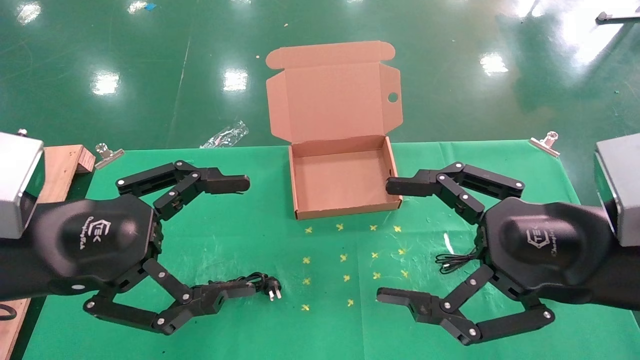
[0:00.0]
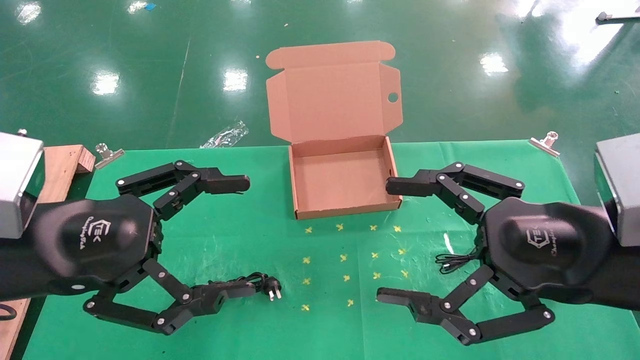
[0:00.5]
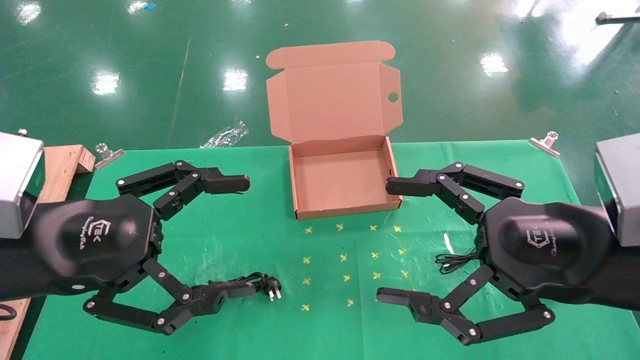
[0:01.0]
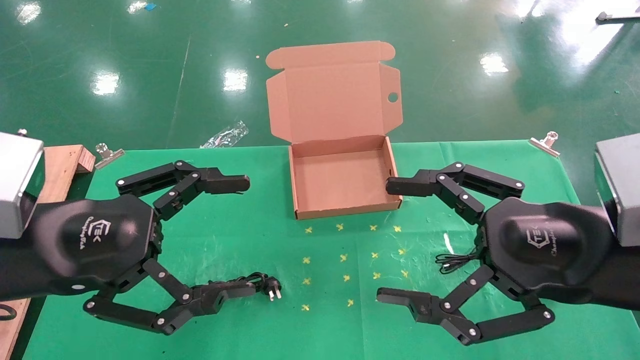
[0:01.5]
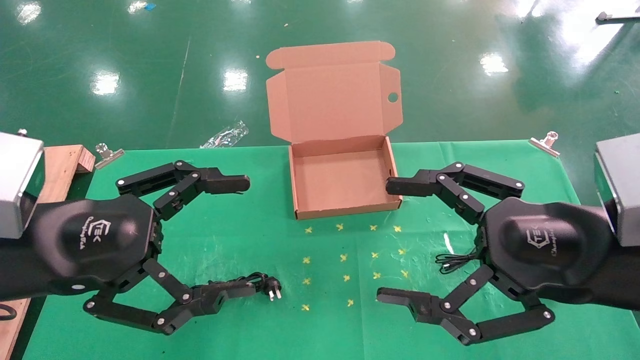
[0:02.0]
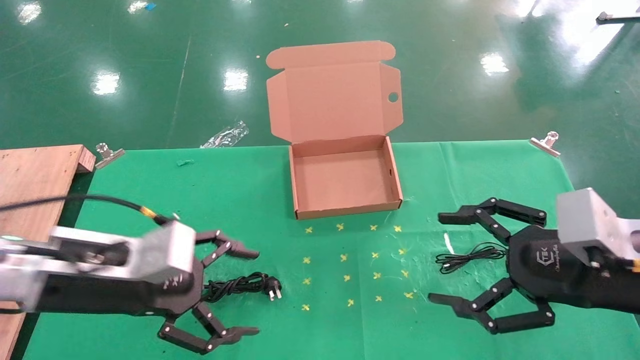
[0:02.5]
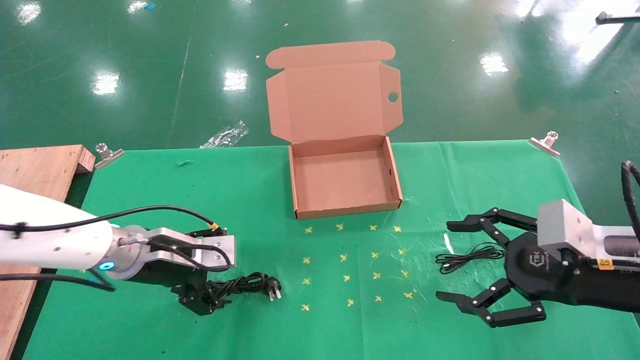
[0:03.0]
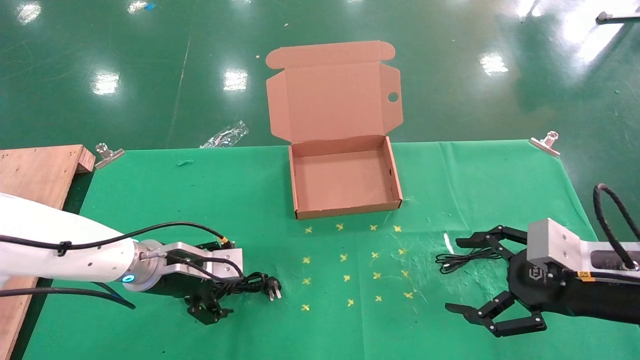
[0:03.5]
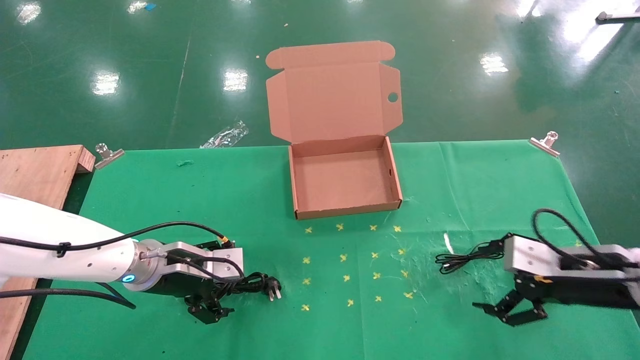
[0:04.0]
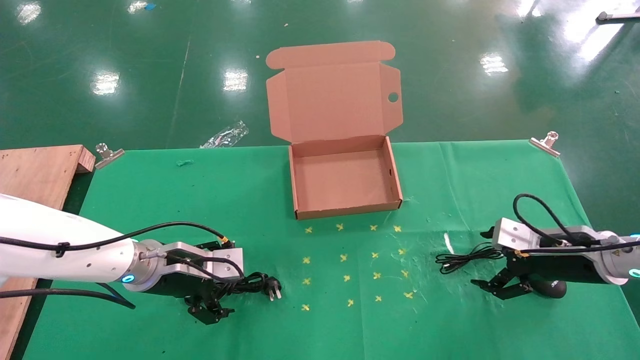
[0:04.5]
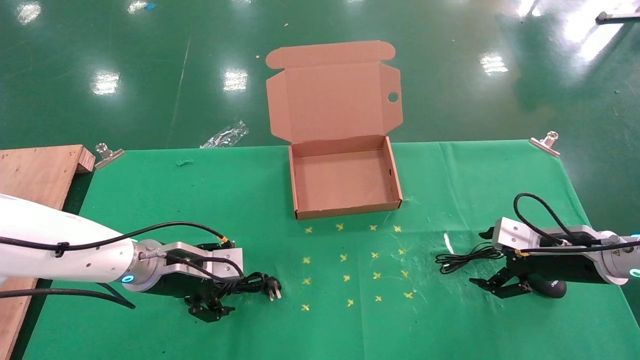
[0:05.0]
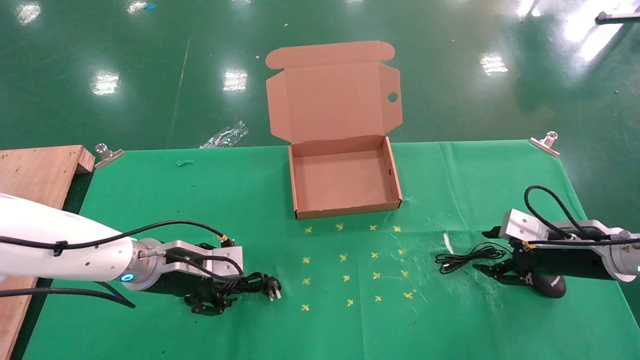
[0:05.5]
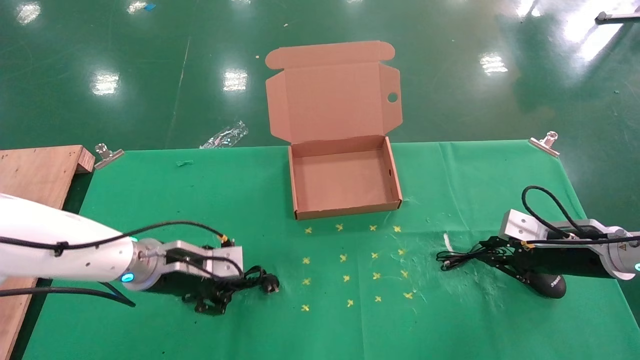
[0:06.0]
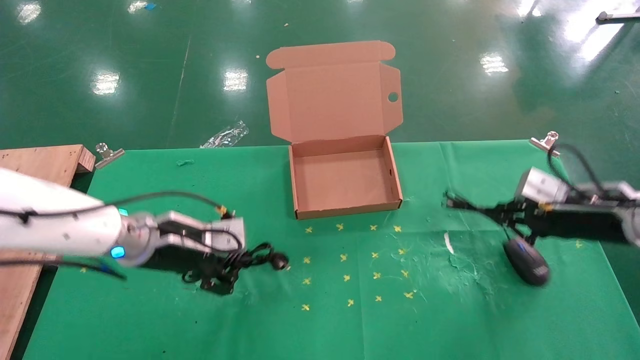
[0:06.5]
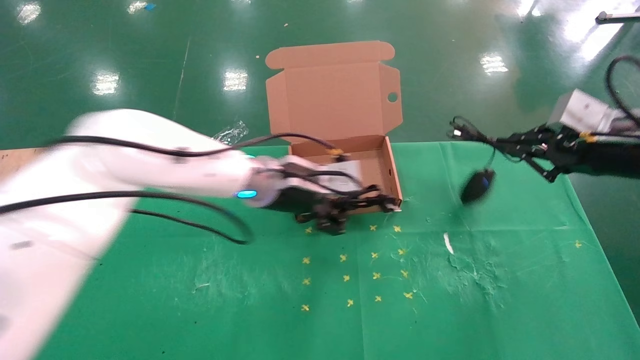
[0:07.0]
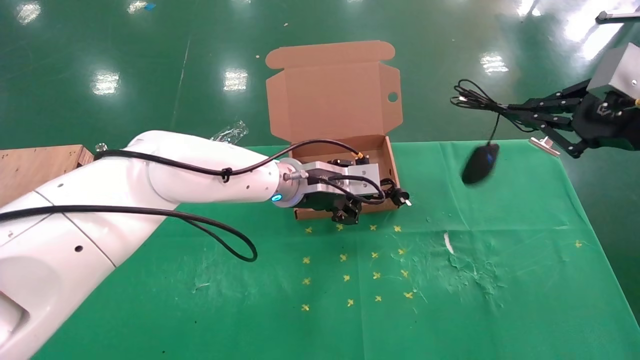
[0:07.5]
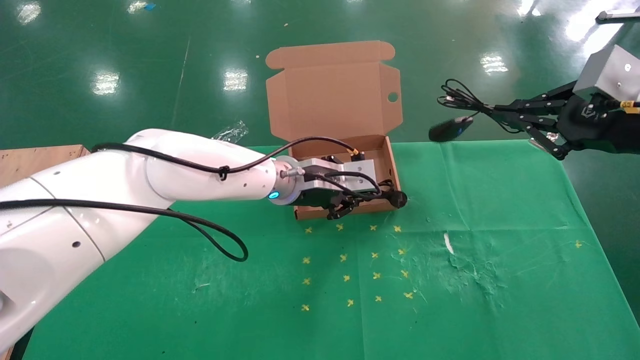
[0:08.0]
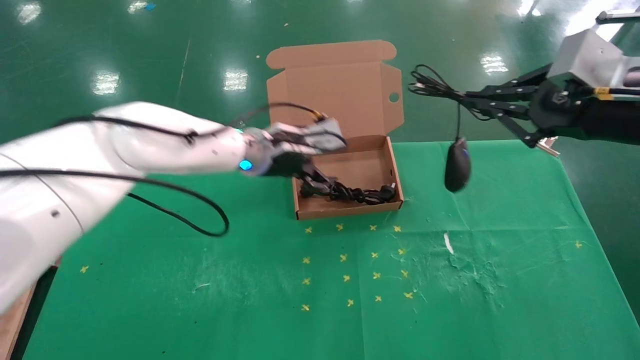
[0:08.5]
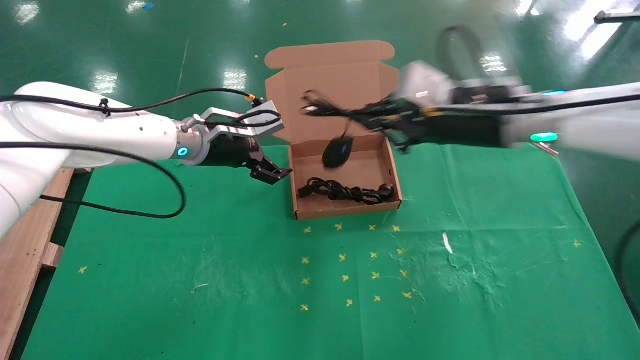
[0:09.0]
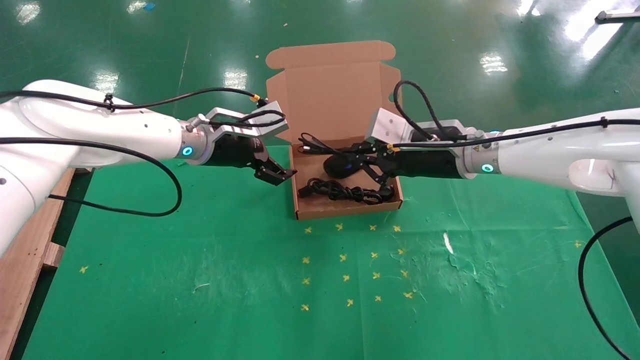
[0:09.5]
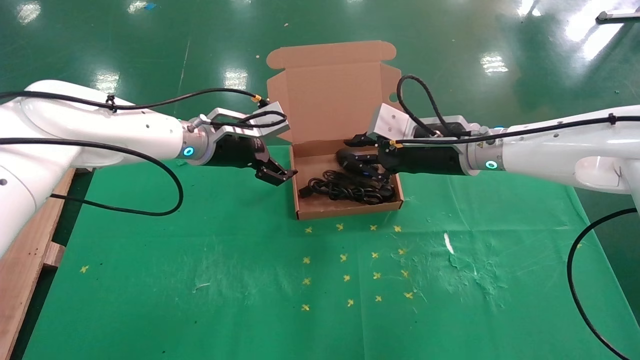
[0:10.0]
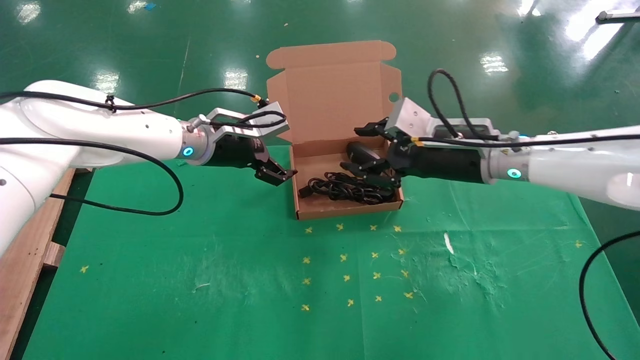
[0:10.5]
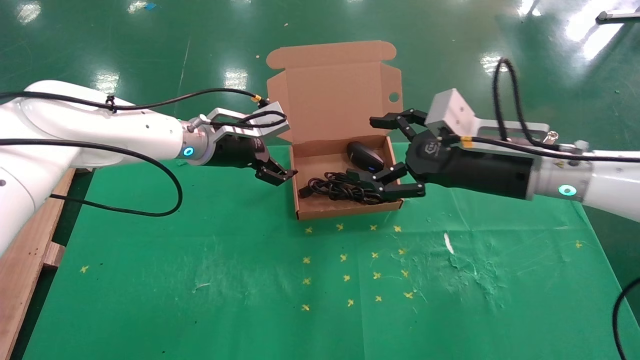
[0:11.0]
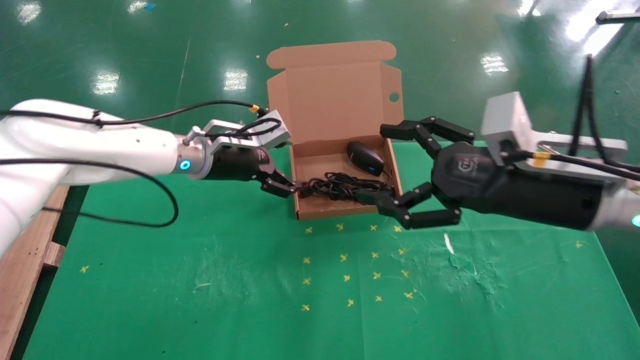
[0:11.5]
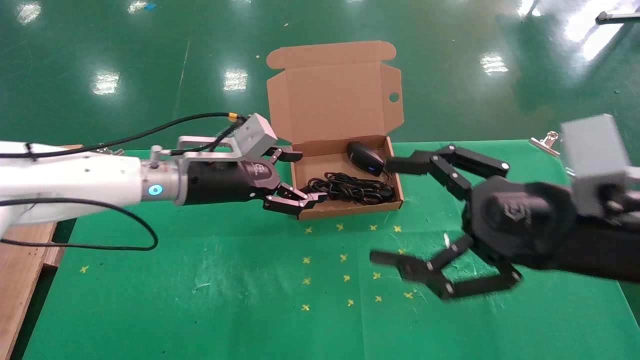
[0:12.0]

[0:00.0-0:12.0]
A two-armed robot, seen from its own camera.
Task of the whole recording: grasp data cable left put into box grasp mouse right put into box.
Step, 0:02.5 to 0:06.0: Simultaneously pick up the mouse and power cord from the accessory packaging area.
Step, 0:06.5 to 0:10.0: Place the mouse and power cord into the box.
0:00.0 to 0:02.0: Neither gripper changes place.
0:02.0 to 0:04.0: The left gripper goes roughly 20 cm forward and downward. The right gripper goes about 20 cm forward, downward and to the right.
0:04.0 to 0:06.0: The right gripper heads forward, covering some 5 cm, and closes its fingers, while the left gripper closes its fingers.
0:06.0 to 0:08.0: The right gripper travels upward by about 20 cm, while the left gripper is displaced to the right and upward by approximately 20 cm.
0:08.0 to 0:10.0: The right gripper shifts roughly 25 cm to the left and forward. Meanwhile the left gripper shifts about 15 cm to the left, and opens.
0:10.0 to 0:12.0: The left gripper moves backward, approximately 5 cm. Meanwhile the right gripper moves backward, some 20 cm, and opens up.

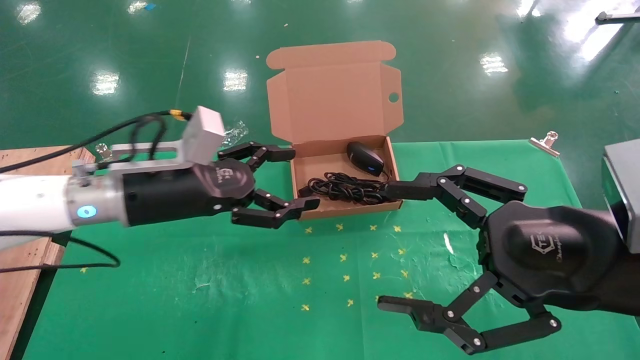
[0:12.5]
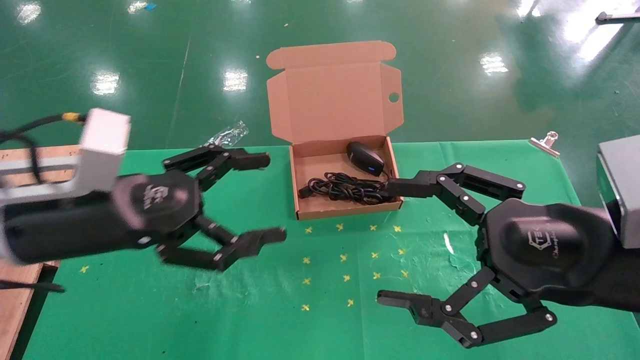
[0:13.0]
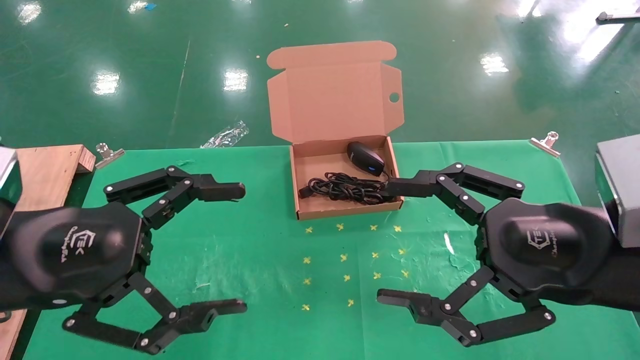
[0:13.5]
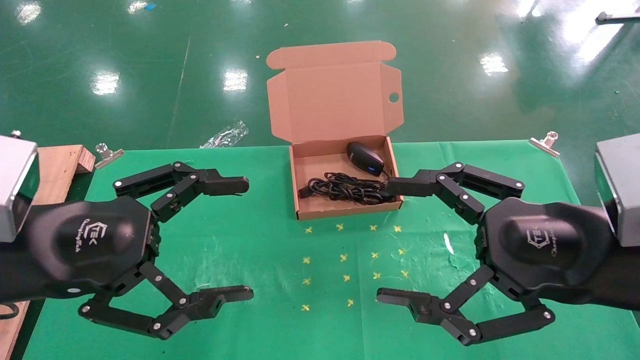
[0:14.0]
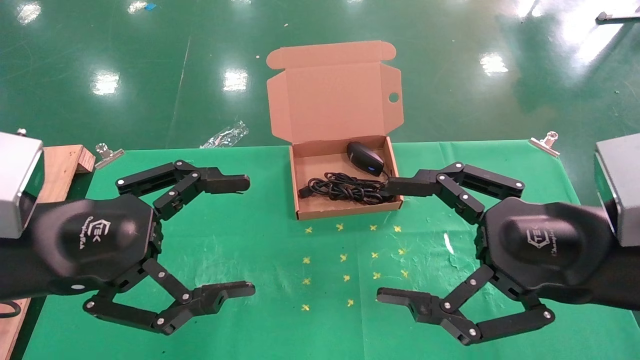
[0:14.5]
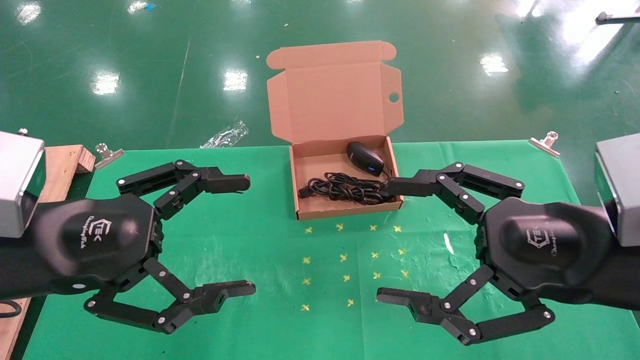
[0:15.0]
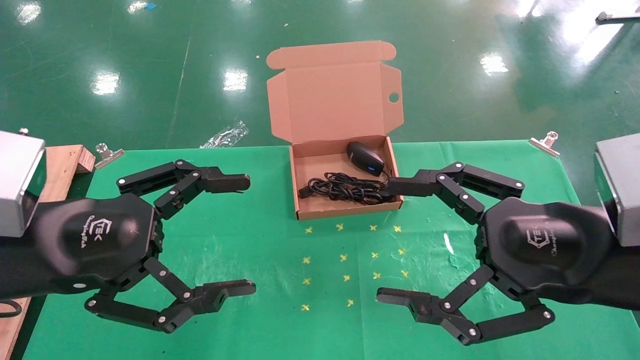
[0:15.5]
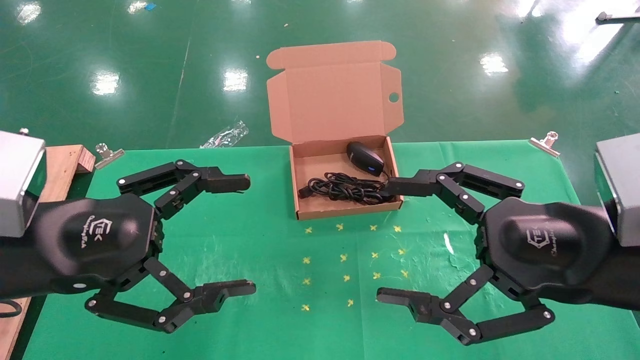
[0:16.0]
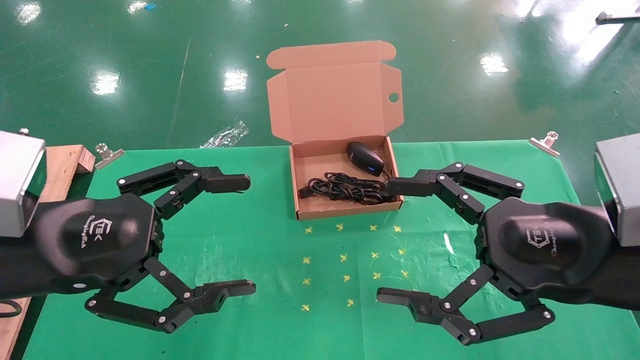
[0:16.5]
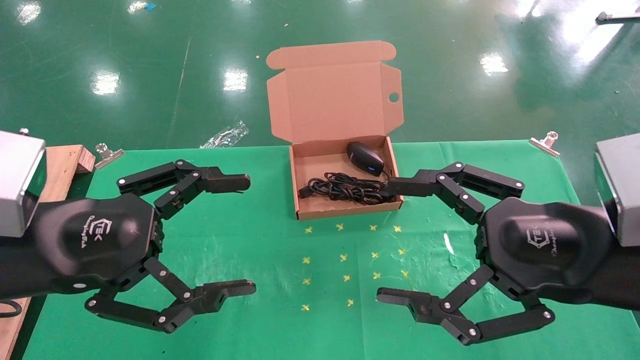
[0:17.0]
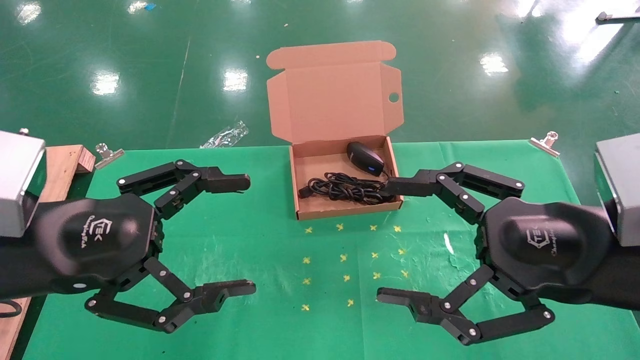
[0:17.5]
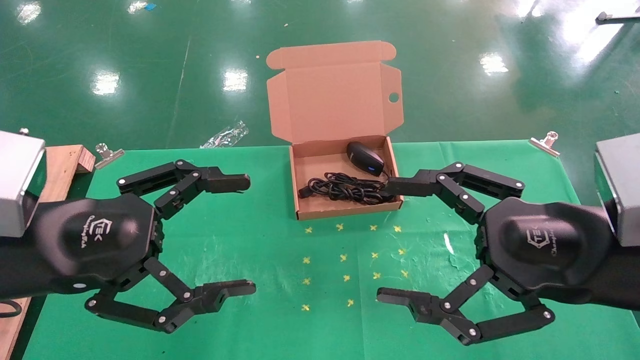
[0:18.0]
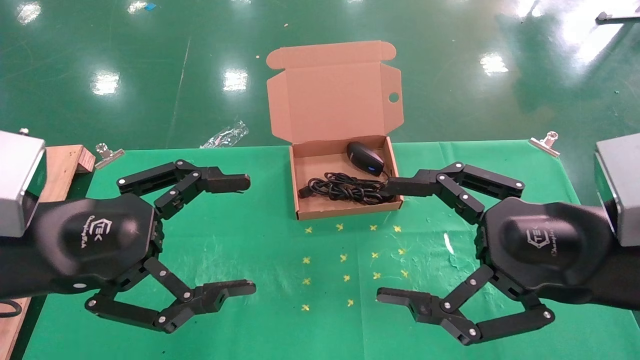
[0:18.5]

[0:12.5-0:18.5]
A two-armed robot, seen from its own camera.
Task of the whole recording: grasp data cable left put into box grasp mouse right put into box.
0:12.5 to 0:14.5: The left gripper heads backward, covering some 15 cm.
0:14.5 to 0:18.5: Neither gripper changes place.
